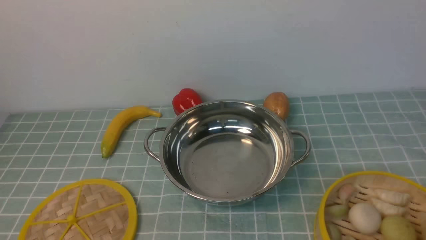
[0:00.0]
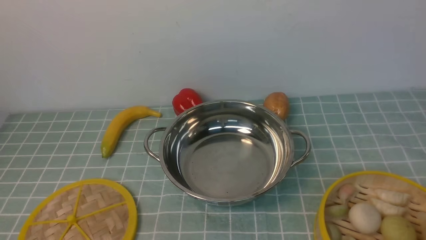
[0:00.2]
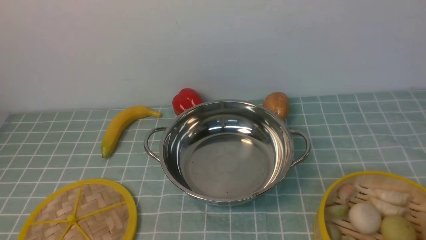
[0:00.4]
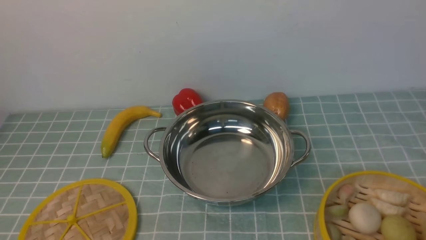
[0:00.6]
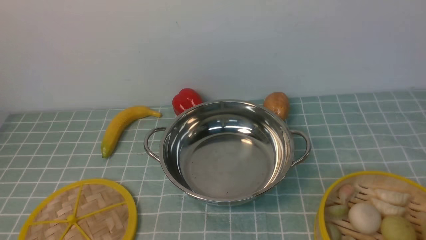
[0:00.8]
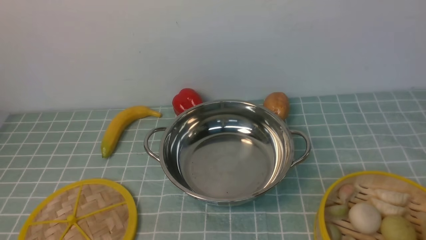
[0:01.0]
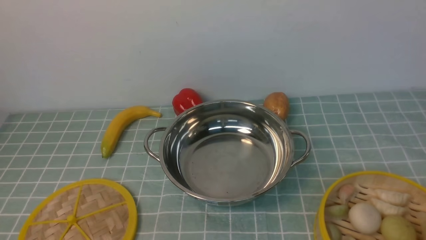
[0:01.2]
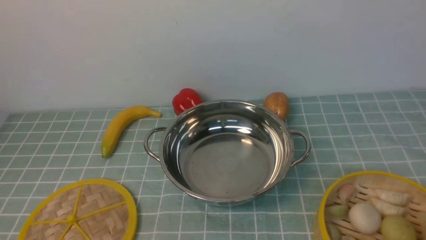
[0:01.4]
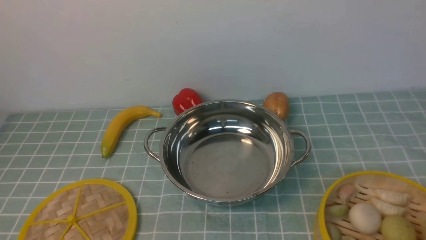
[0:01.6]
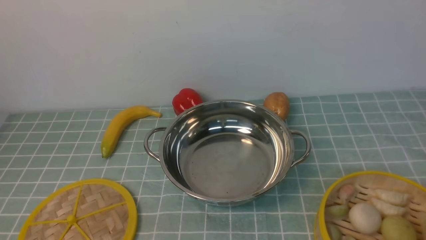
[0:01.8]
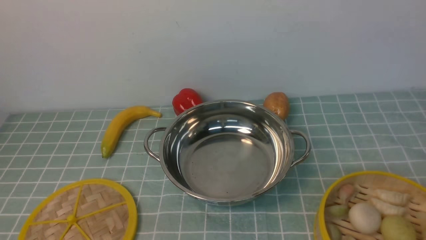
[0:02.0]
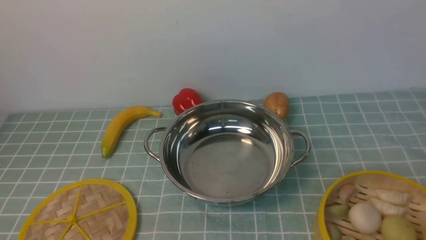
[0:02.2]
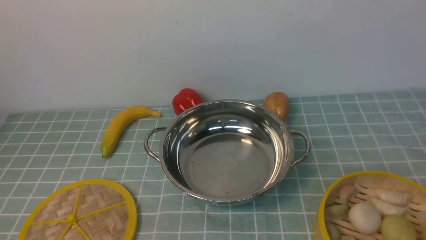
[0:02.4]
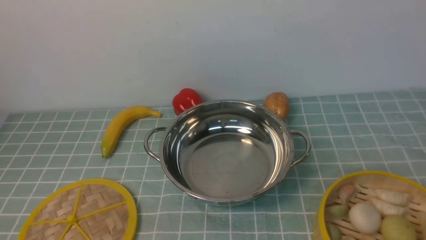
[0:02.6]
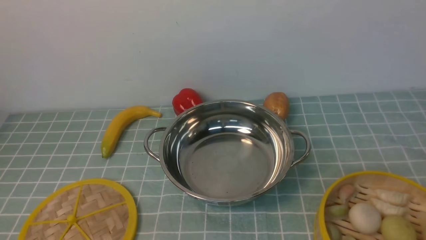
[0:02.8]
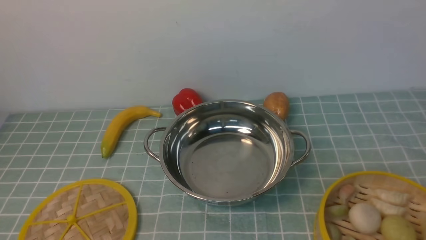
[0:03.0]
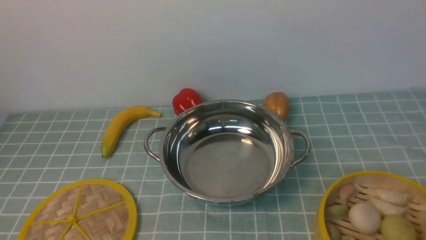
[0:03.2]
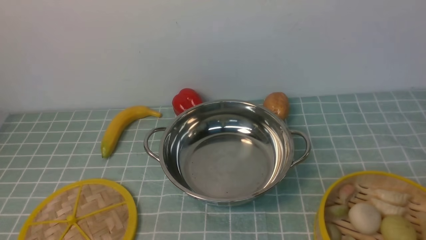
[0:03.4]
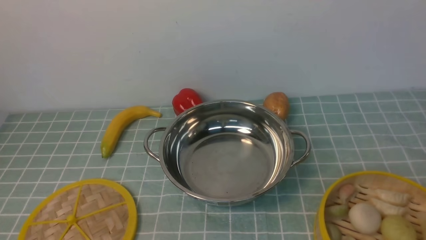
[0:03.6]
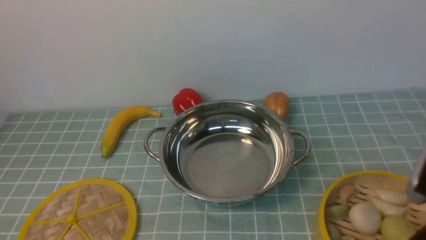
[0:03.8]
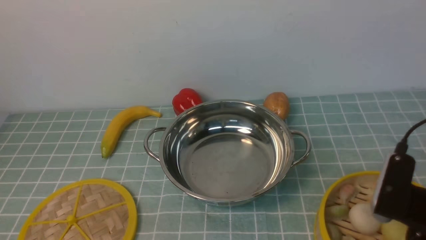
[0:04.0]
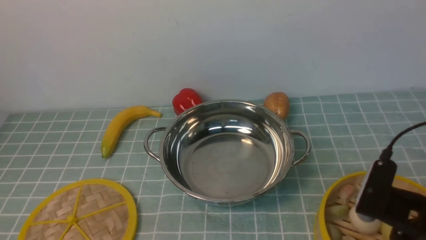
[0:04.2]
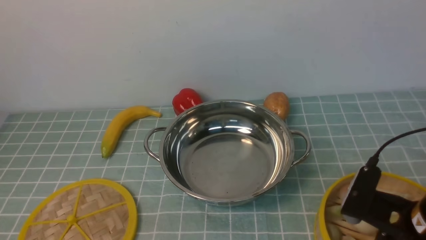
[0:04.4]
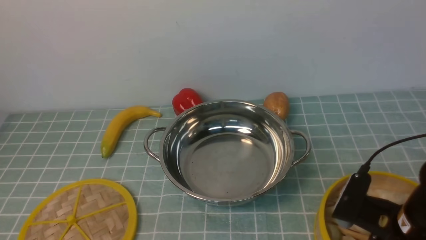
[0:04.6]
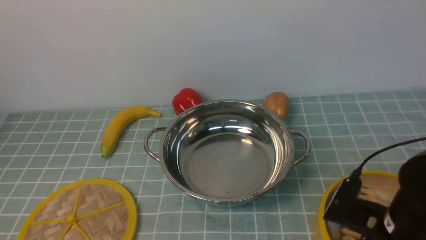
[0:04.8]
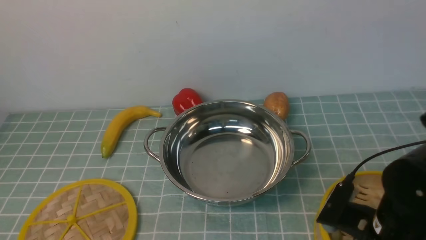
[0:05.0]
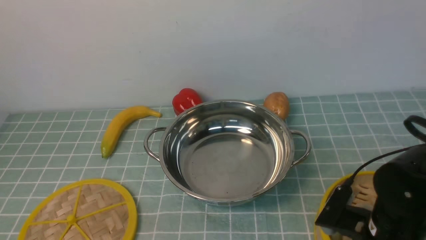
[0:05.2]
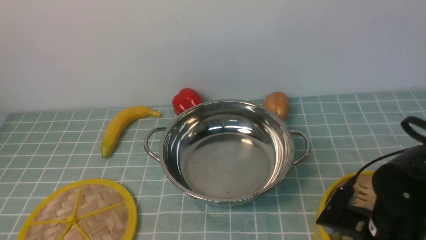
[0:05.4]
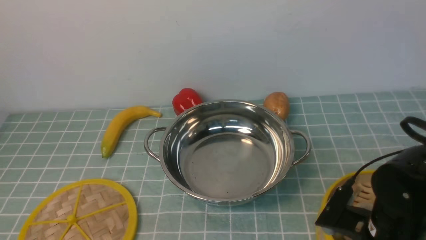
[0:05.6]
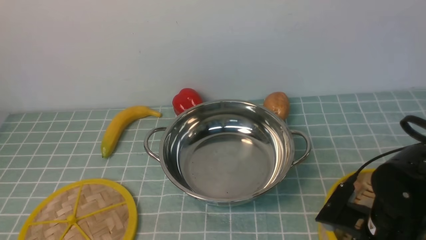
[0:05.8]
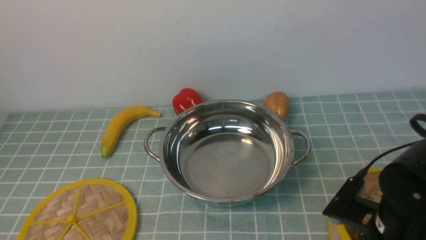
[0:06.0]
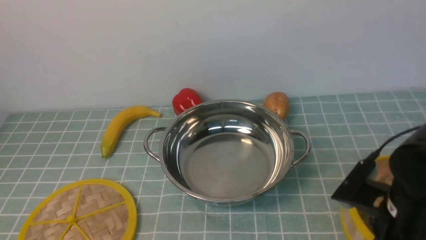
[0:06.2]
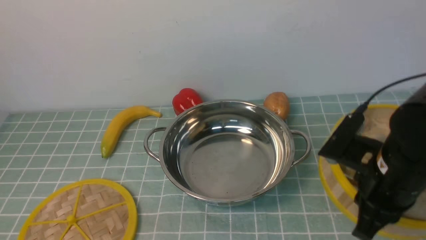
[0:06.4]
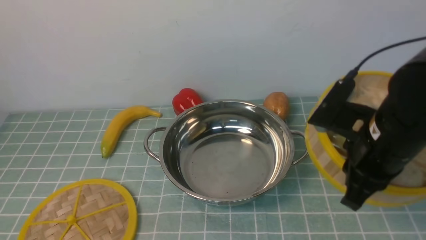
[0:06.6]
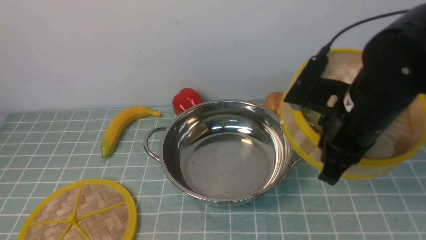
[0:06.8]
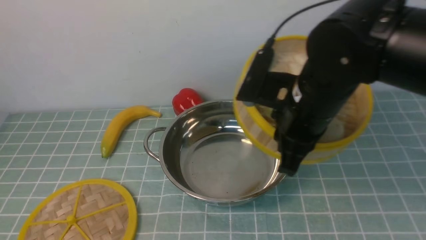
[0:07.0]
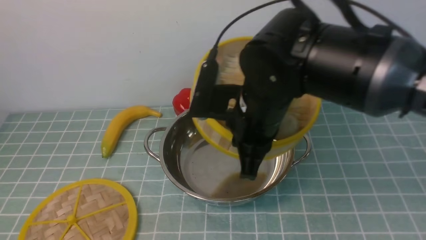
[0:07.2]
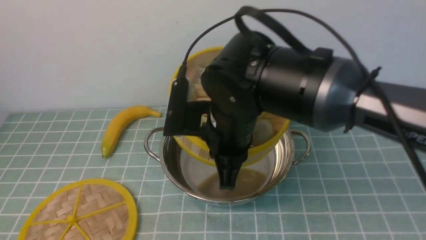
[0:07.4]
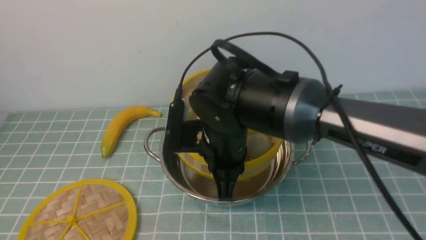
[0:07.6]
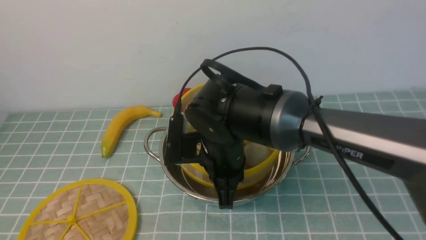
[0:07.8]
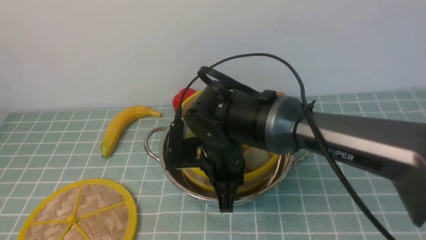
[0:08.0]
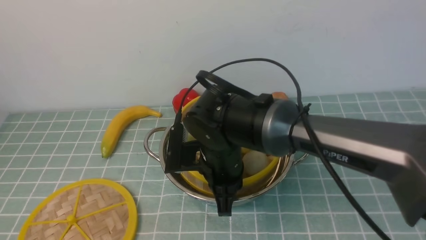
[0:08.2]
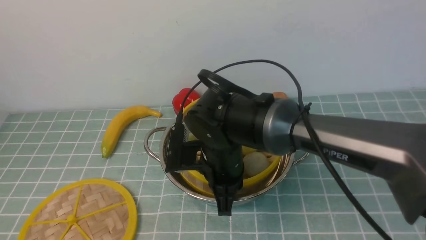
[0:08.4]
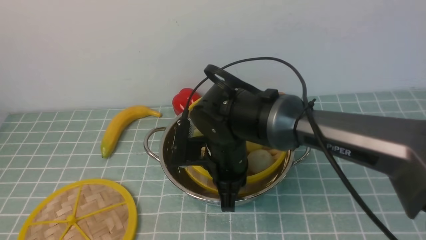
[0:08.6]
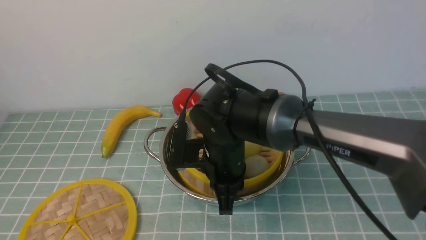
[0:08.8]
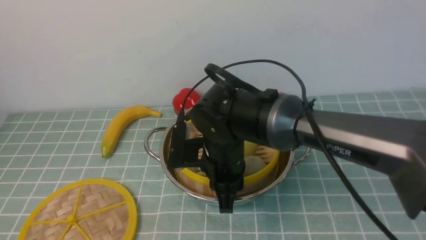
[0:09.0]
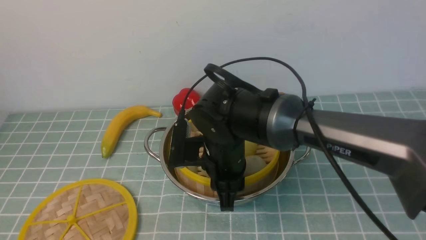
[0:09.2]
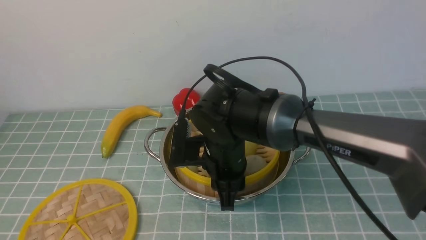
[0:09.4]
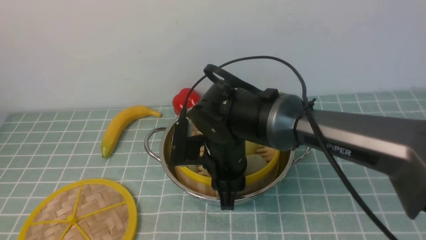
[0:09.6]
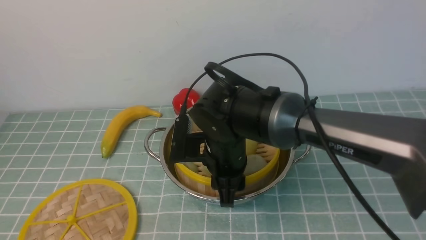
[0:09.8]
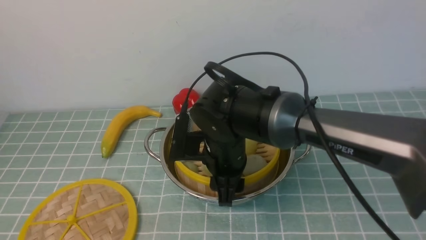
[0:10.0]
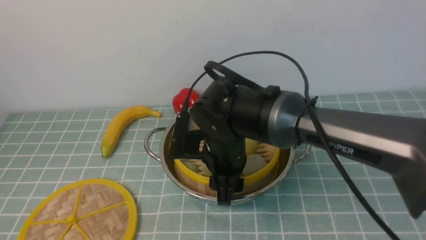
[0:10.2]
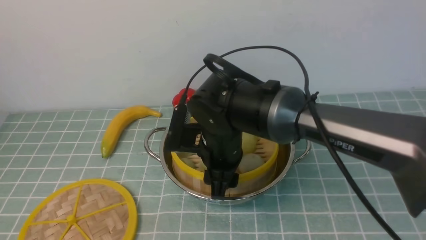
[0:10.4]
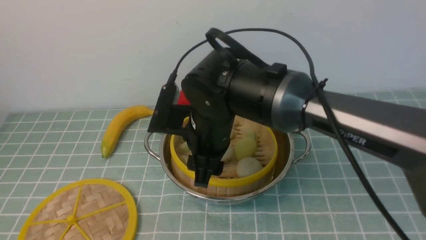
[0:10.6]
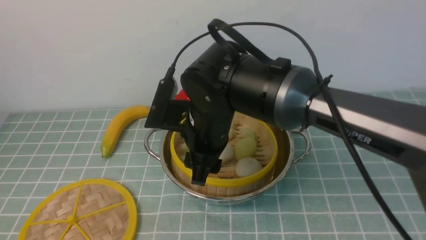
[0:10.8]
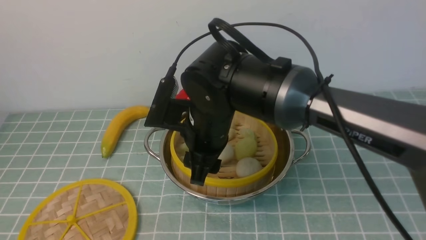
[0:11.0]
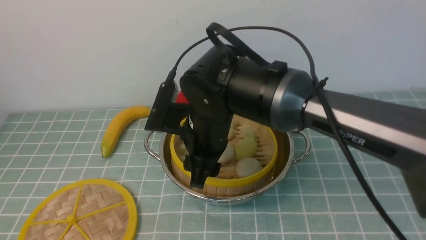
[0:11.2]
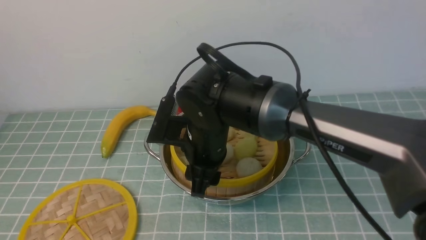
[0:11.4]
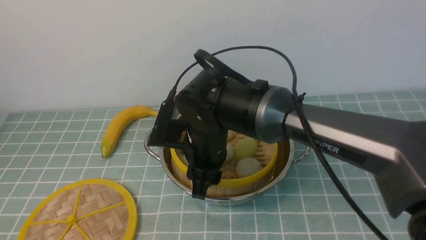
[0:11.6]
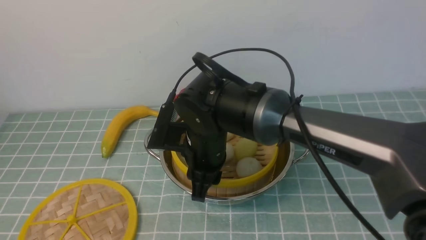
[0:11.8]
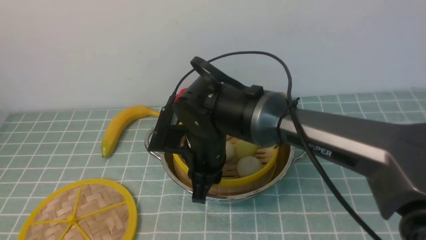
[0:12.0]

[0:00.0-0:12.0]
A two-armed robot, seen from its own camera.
Task of the whole recording: place the steamer in the pot on the blue tablecloth, and put the lid on the steamer.
Step, 0:00.0 to 0:06.0: use the right arm to lift the steamer closest to it.
0:00.0 to 0:01.6: Both grippers stay put.
0:03.0 to 0:04.4: The right gripper travels forward, downward and to the left by roughly 20 cm.
0:04.4 to 0:06.0: The right gripper changes place by approximately 5 cm, and closes up.
0:06.0 to 0:07.6: The right gripper travels to the left and forward by some 20 cm.
0:07.6 to 0:09.0: The grippers move only a little.
0:09.0 to 0:10.4: The right gripper opens its fingers.
0:10.4 to 0:12.0: The right gripper closes.

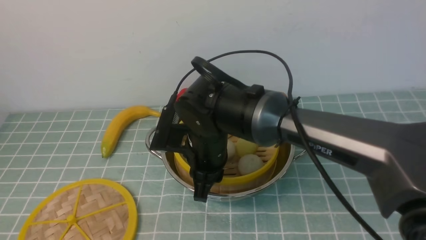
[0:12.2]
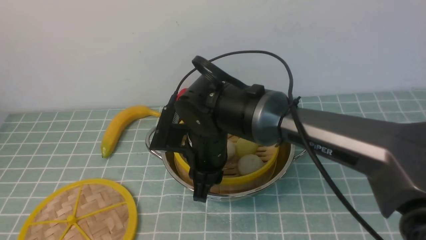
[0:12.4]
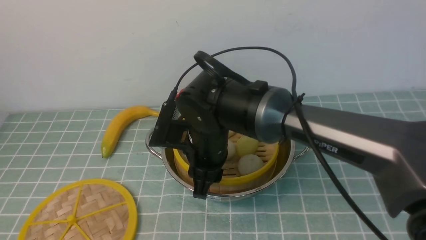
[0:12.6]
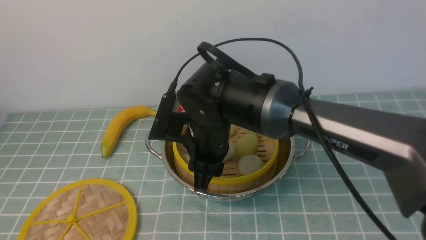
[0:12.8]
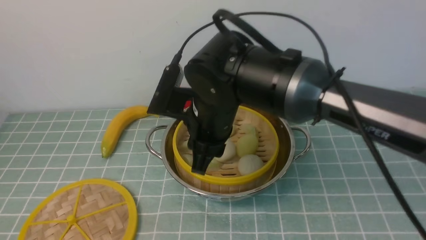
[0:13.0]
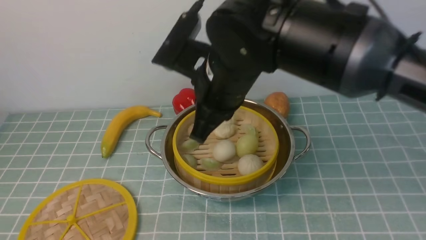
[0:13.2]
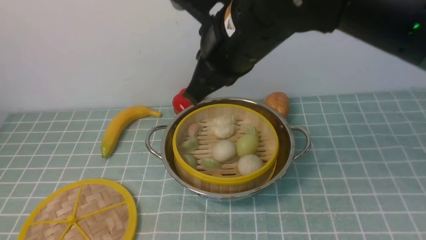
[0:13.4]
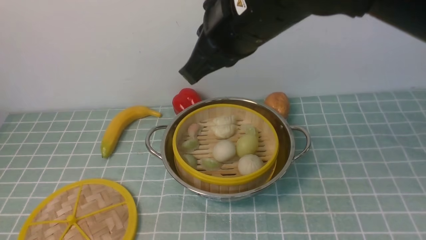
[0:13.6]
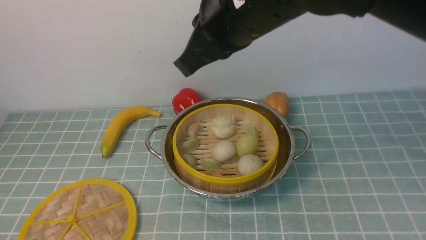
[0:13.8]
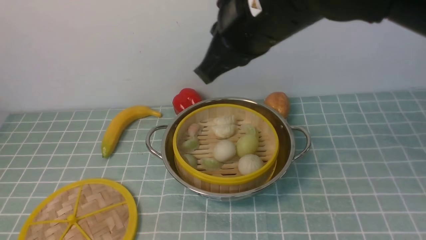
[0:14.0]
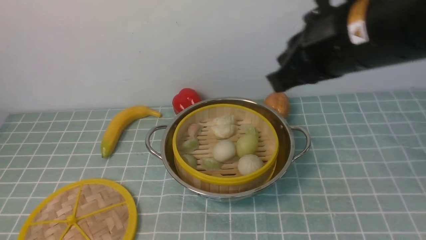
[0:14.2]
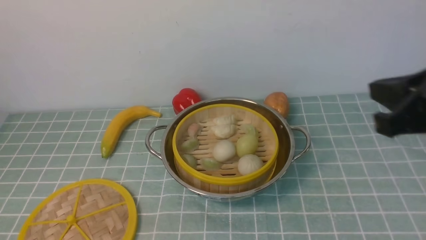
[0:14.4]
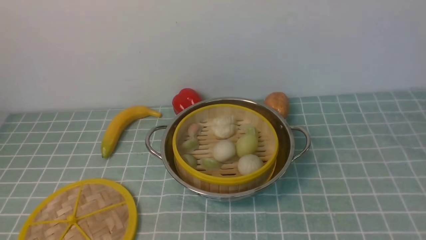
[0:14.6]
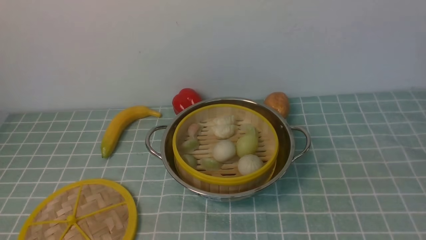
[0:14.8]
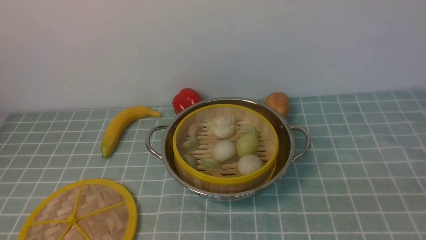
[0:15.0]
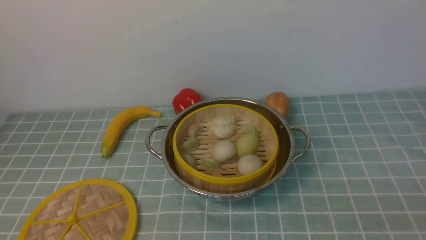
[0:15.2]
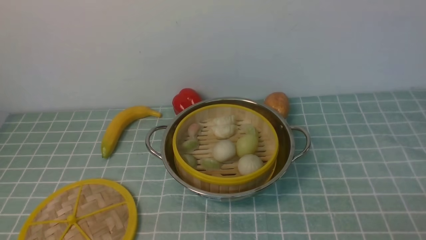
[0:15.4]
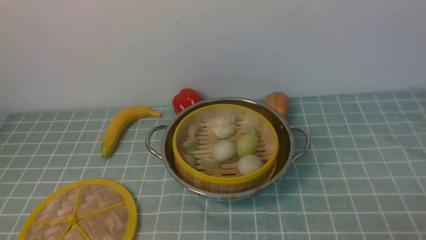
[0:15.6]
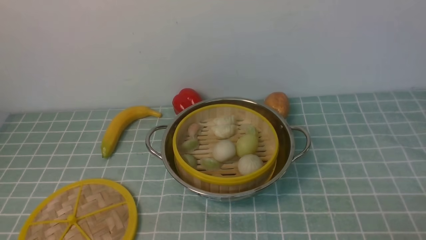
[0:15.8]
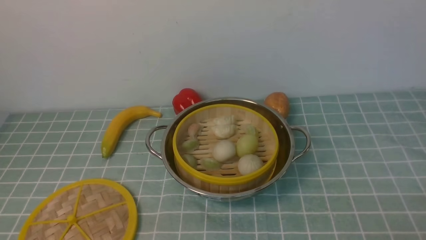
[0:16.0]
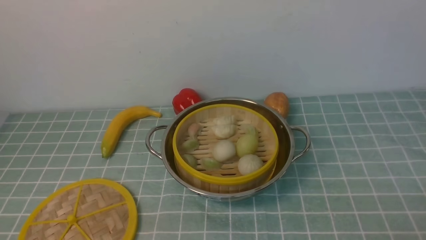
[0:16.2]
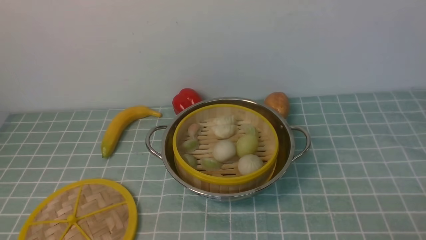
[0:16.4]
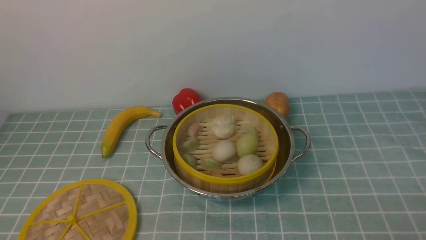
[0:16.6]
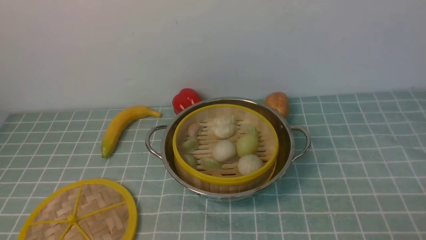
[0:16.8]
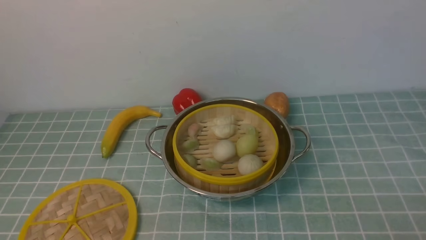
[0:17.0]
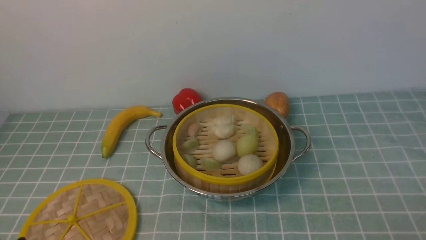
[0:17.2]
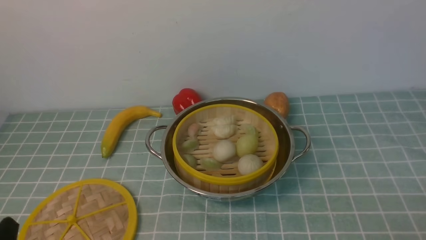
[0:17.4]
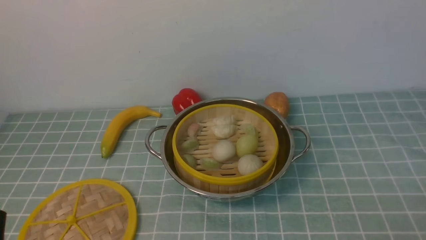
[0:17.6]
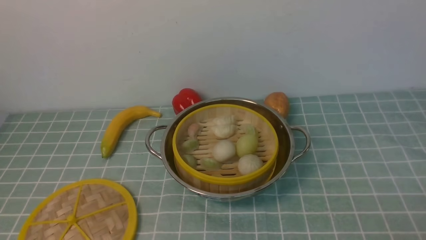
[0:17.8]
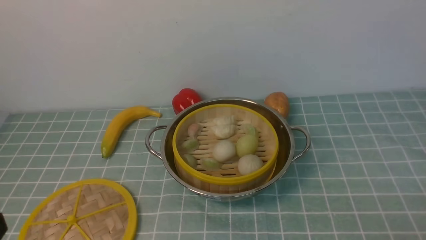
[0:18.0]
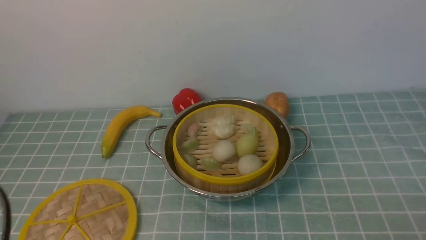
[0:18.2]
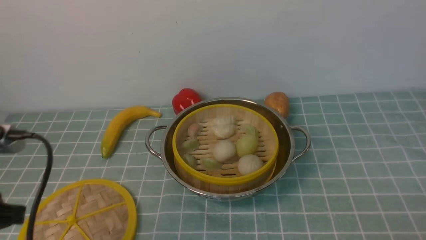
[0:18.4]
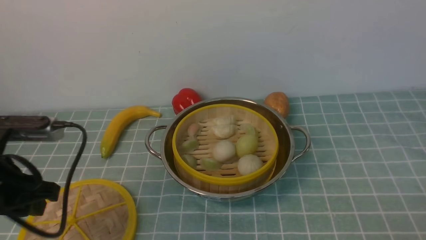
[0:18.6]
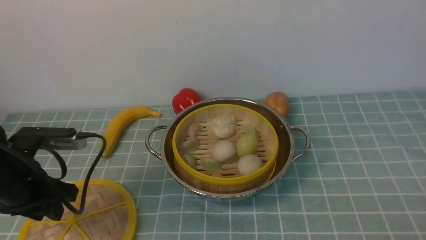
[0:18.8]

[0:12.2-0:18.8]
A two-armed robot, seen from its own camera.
Task of the whole recording: place the steamer in the pot on the blue tablecloth, and put the lid on the steamer.
0:12.2 to 0:13.8: The right gripper is displaced upward by some 20 cm, and closes its fingers.
0:13.8 to 0:15.4: The right gripper is displaced to the right, downward and backward by approximately 40 cm.
0:17.2 to 0:18.8: The left gripper moves forward, roughly 20 cm.
